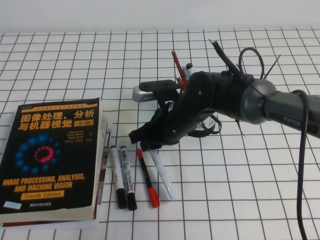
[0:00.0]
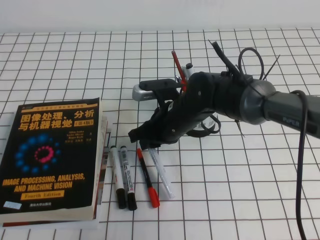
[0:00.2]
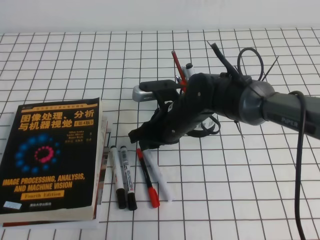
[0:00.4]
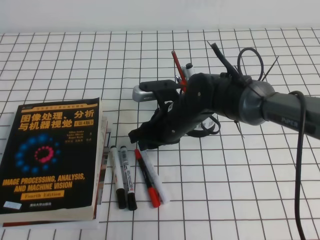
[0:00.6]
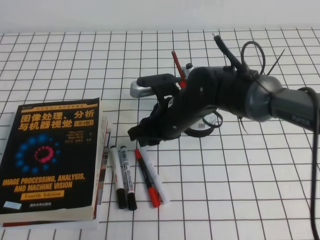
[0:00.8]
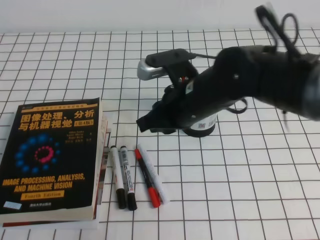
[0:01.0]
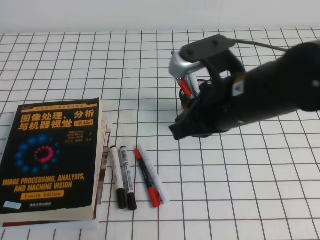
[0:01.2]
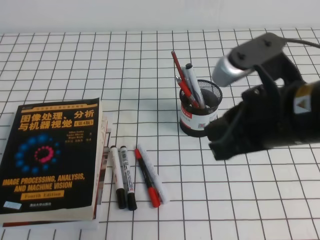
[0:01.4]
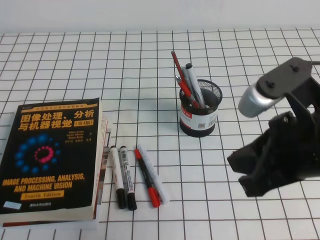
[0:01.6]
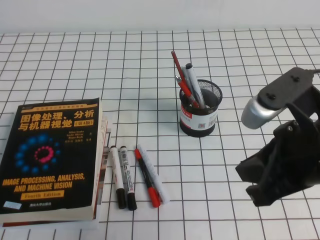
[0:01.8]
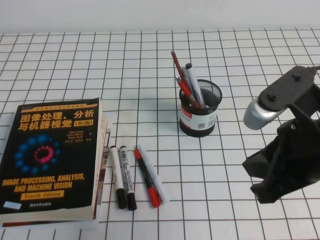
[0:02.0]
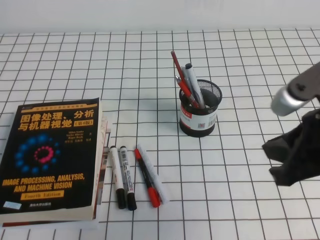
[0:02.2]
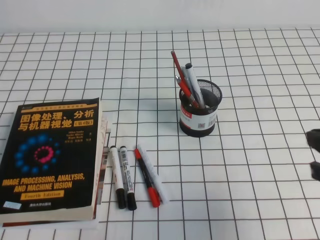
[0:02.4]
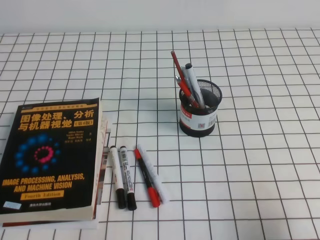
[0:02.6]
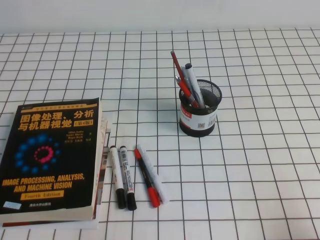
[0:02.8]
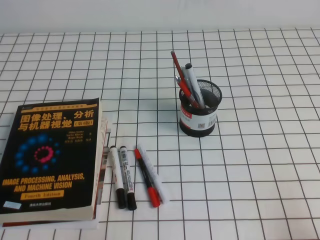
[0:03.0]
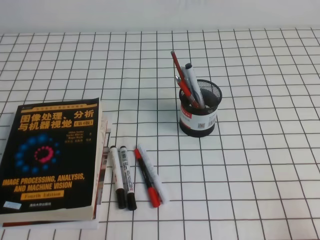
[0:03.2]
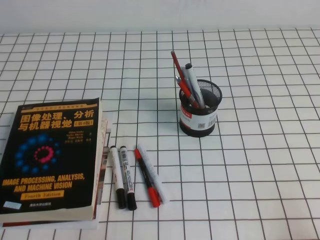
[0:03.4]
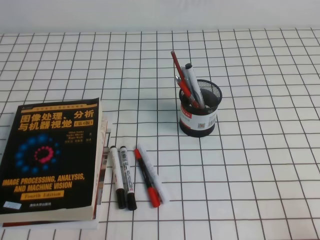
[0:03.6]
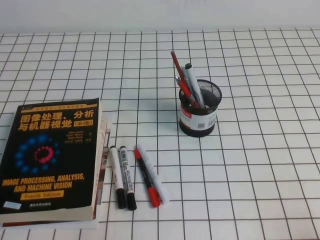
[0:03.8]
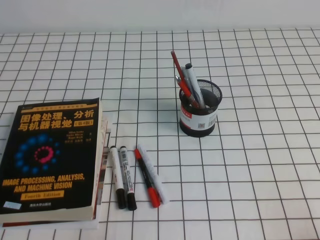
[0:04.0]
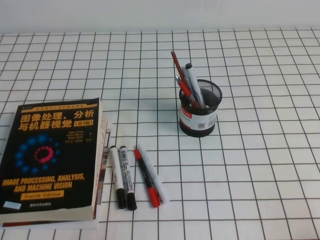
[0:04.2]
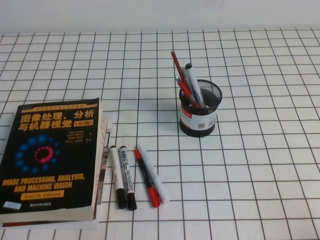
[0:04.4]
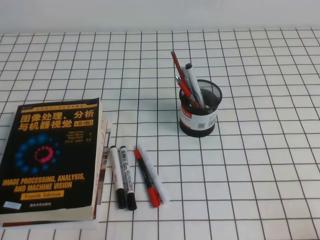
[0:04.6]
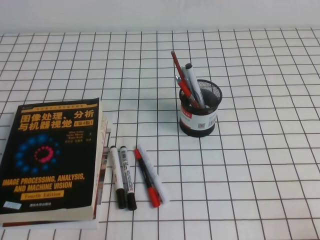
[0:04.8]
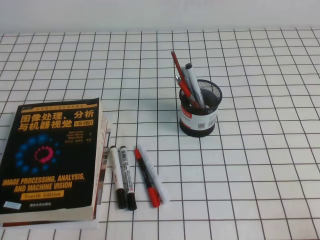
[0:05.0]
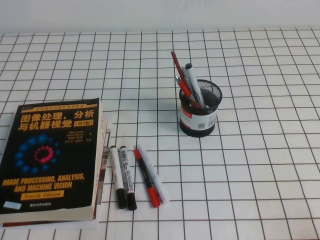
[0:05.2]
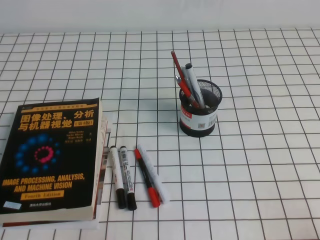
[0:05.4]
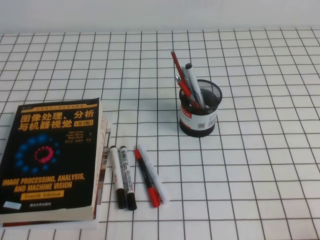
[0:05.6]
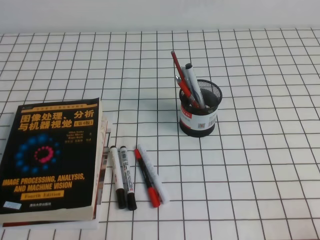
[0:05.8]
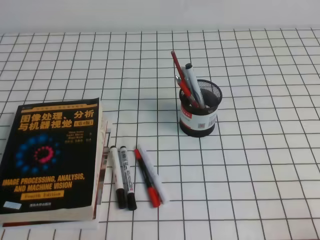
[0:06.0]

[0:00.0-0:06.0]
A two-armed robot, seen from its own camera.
Step, 0:00.0 to 0:06.0: Pick up the pen from the pen holder.
0:00.0 to 0:01.6: The right gripper is displaced backward, upward and to the right by some 25 cm.
0:01.6 to 0:03.0: The right gripper moves to the right, downward and backward, approximately 25 cm.
0:04.4 to 0:06.0: Both grippers stay about where they are.
